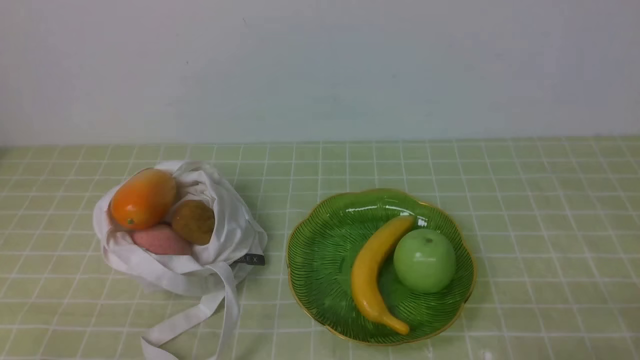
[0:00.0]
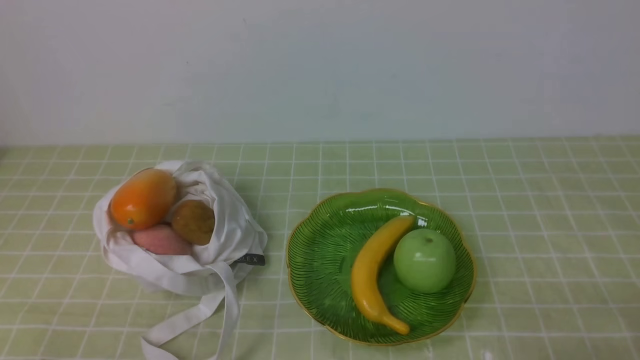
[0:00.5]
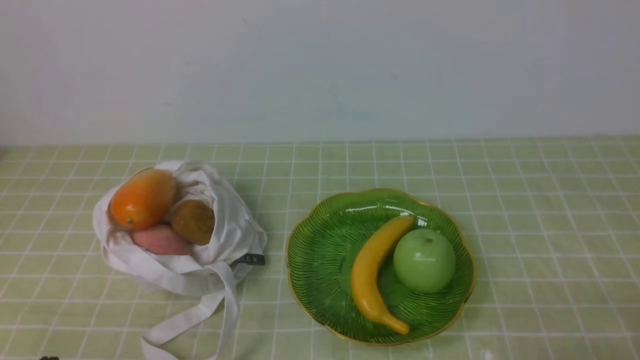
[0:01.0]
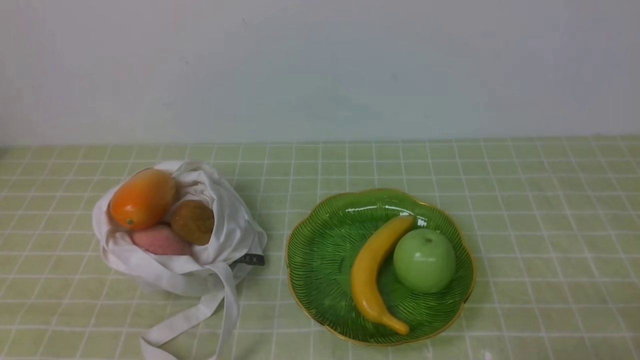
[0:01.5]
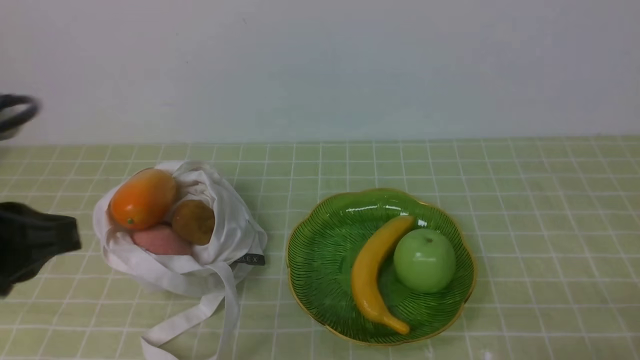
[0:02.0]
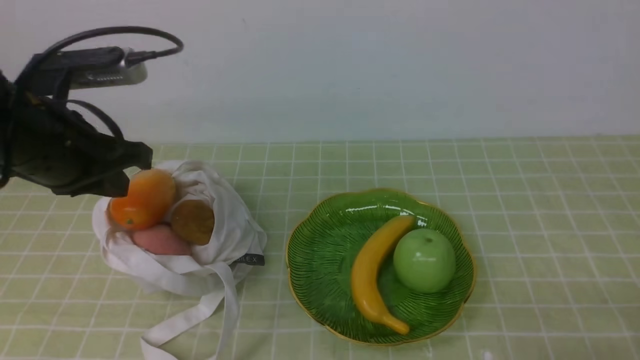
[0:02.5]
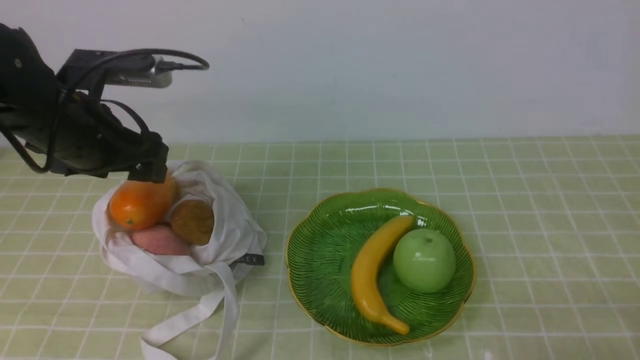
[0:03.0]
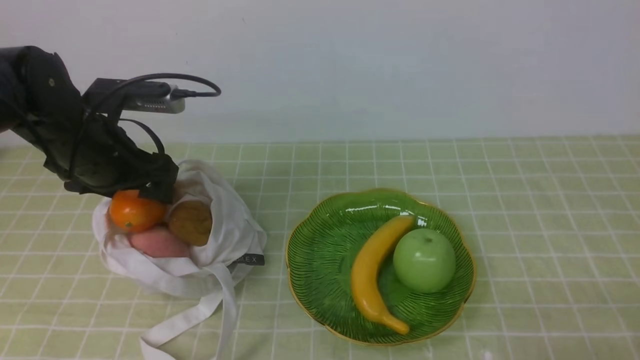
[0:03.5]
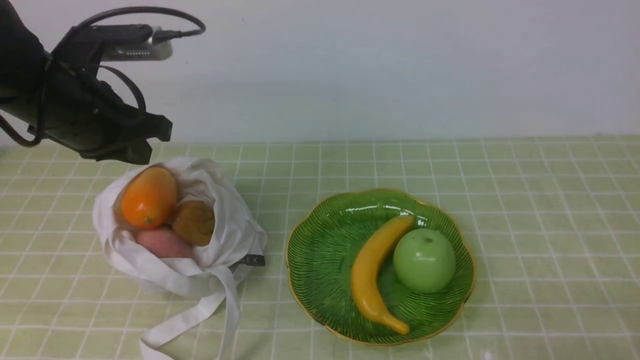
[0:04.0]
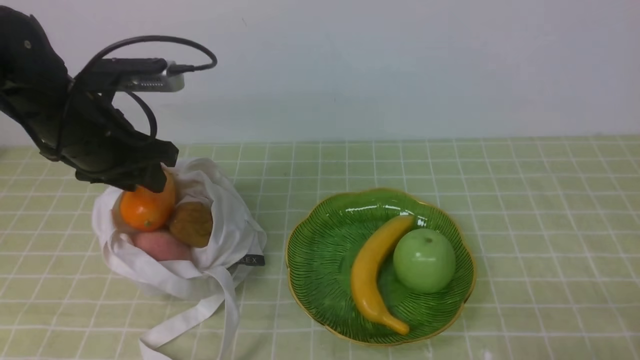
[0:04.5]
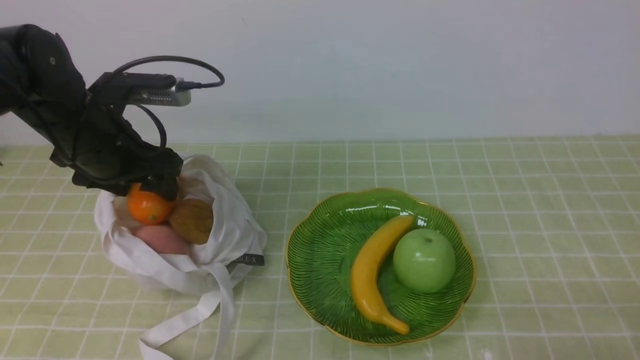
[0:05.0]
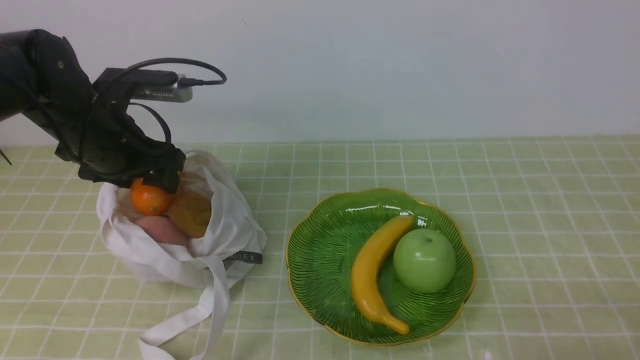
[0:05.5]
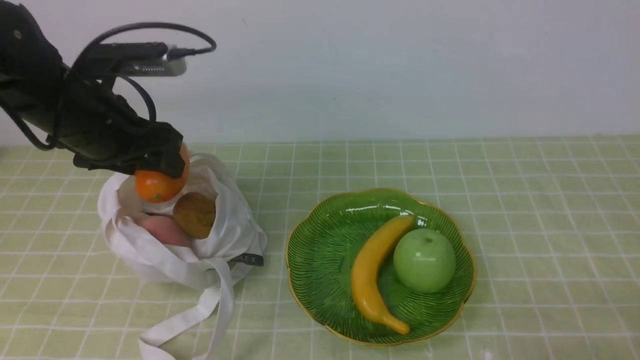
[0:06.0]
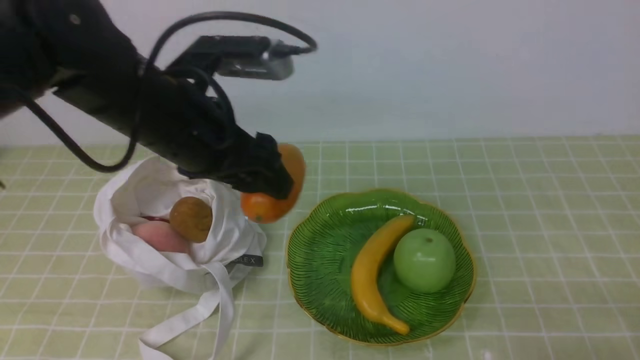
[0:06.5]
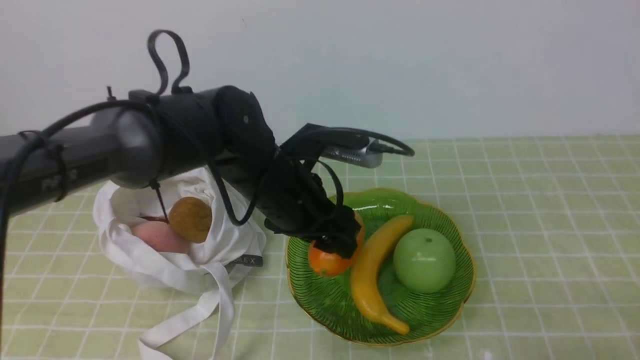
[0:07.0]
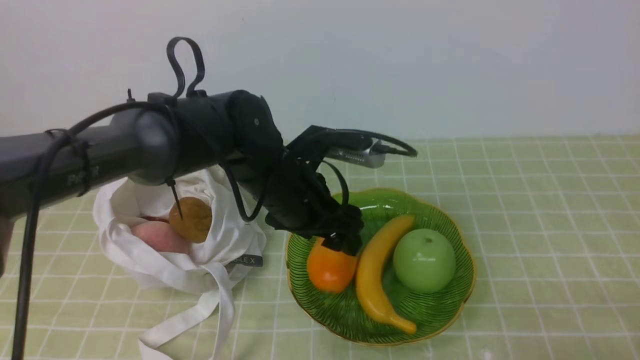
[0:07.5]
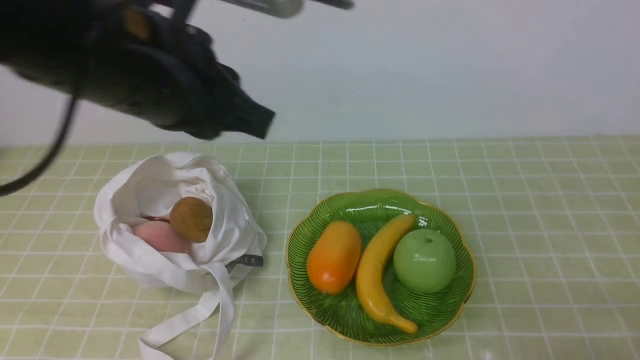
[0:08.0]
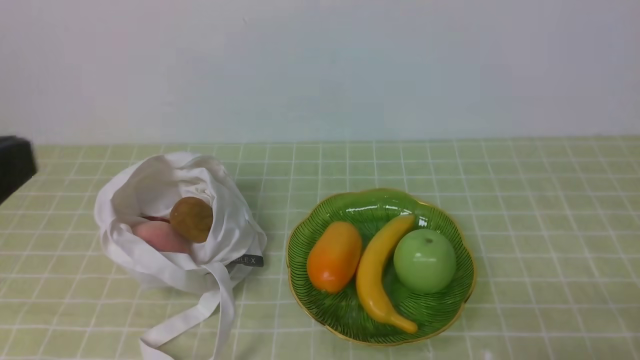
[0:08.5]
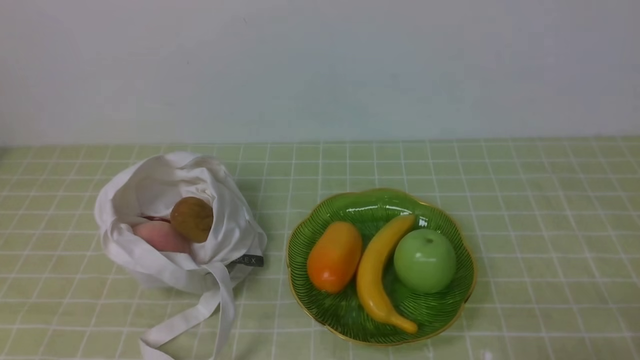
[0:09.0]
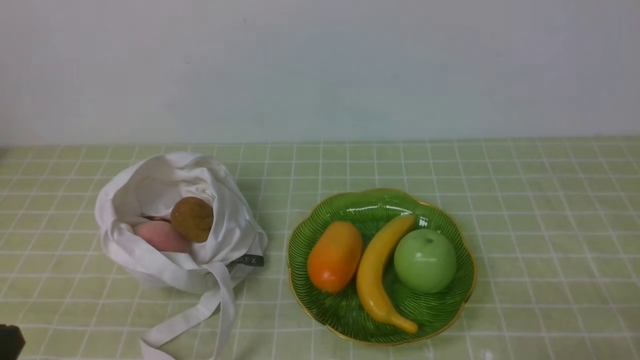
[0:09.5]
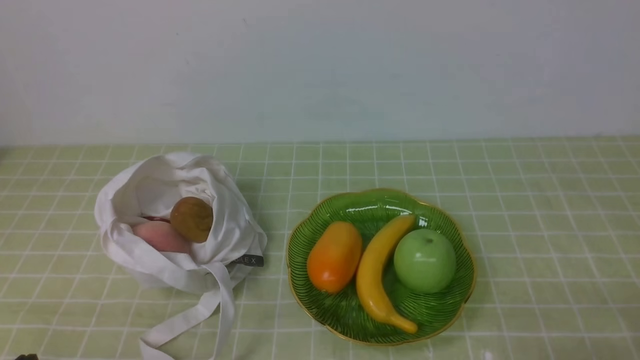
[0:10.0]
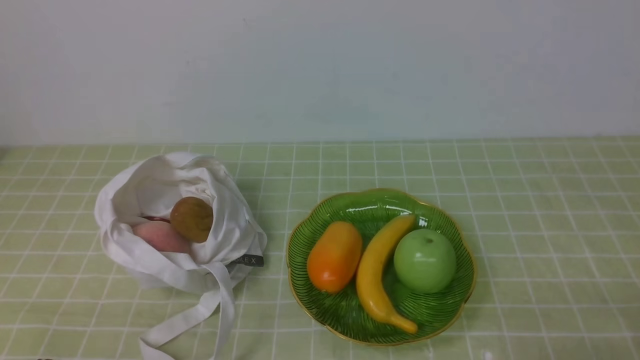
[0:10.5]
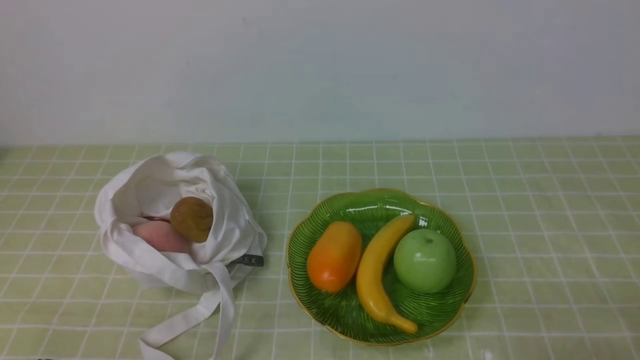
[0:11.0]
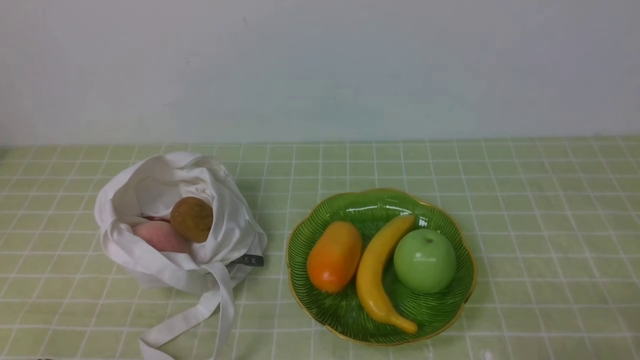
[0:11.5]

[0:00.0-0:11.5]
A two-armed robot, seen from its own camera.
Step, 0:00.0 to 0:03.5: use the left arm to grab a mango from the bag.
Step, 0:04.0 to 0:07.0: use the left arm to put the mango into the empty plate on the right.
0:00.0 to 0:02.0: The left gripper heads upward and forward, covering approximately 20 cm.
0:02.0 to 0:04.0: The left gripper heads forward, covering roughly 20 cm, and opens, then closes again.
0:04.0 to 0:06.0: The left gripper opens up.
0:06.0 to 0:07.5: The left gripper goes roughly 15 cm to the right.
0:07.5 to 0:09.5: The left gripper heads backward and to the left, covering approximately 35 cm, and closes.
